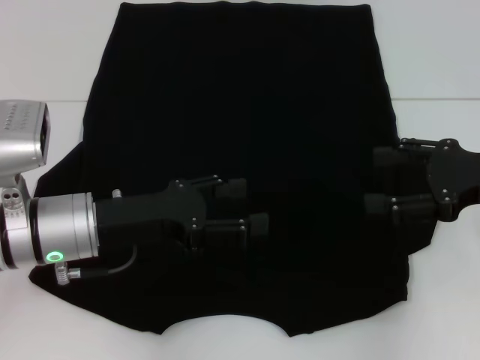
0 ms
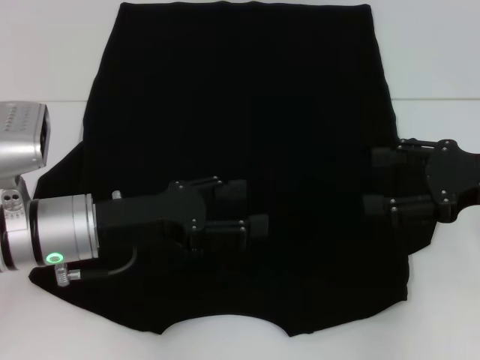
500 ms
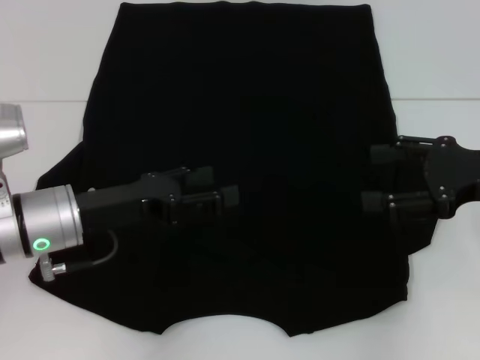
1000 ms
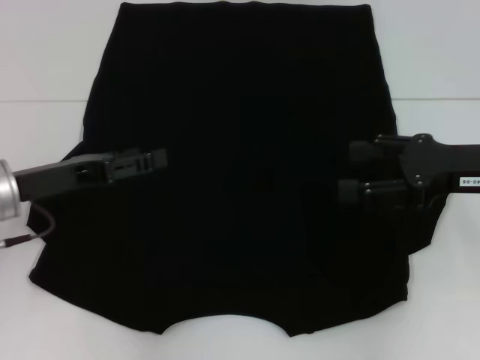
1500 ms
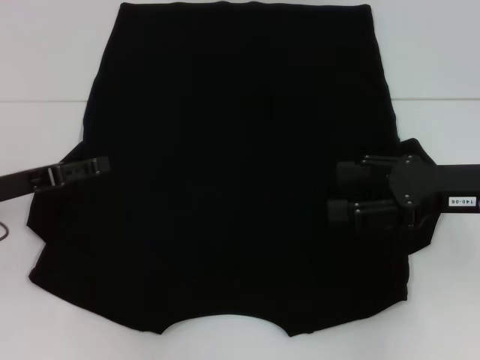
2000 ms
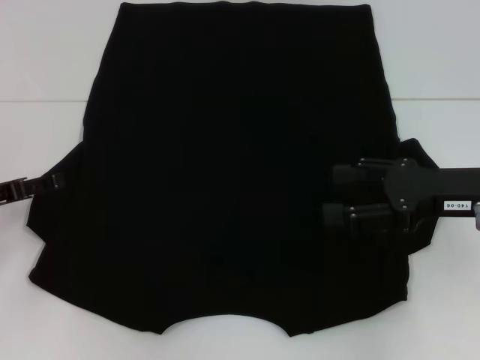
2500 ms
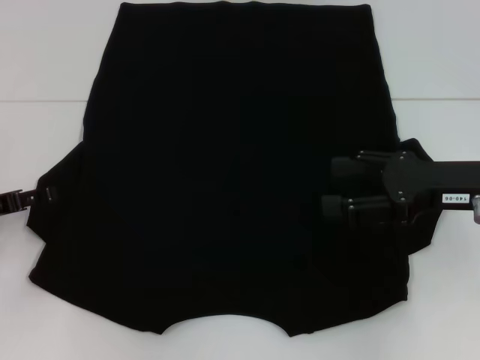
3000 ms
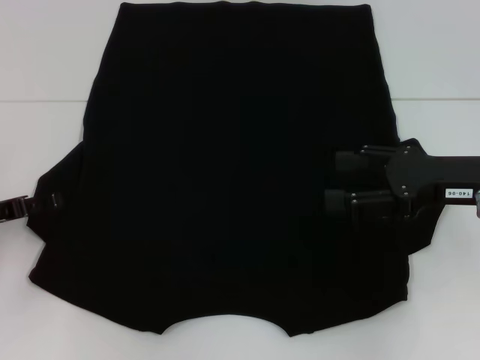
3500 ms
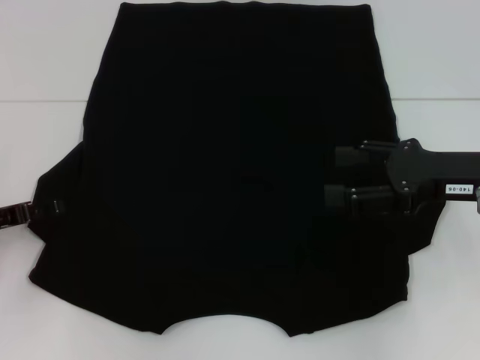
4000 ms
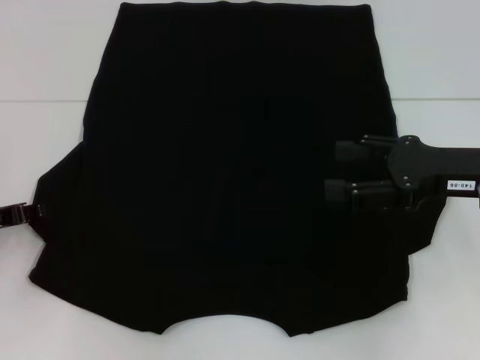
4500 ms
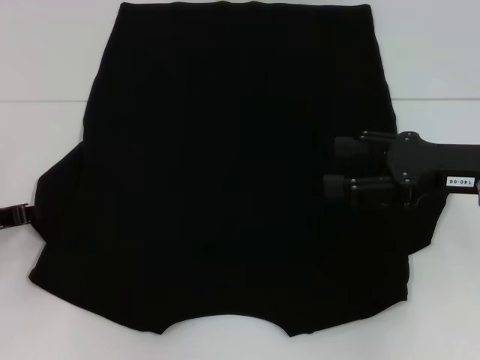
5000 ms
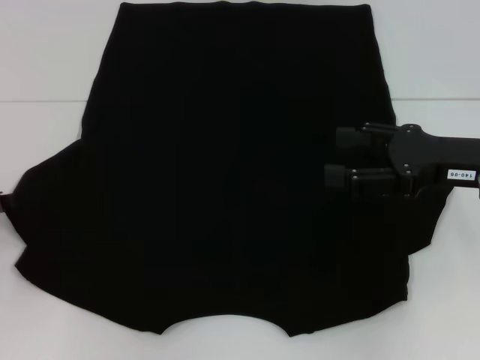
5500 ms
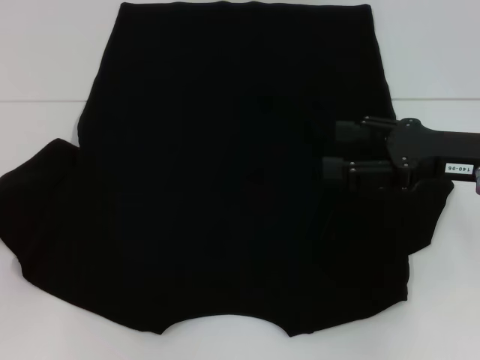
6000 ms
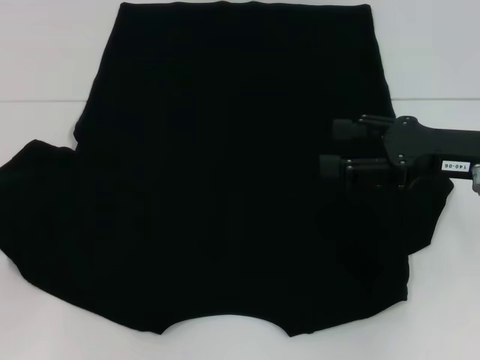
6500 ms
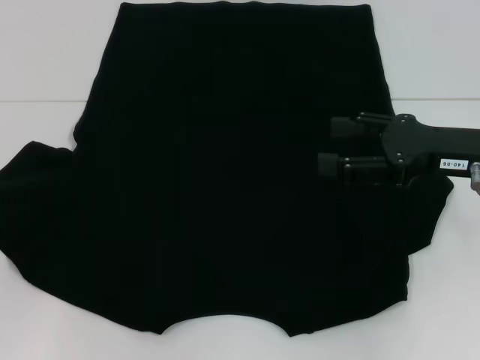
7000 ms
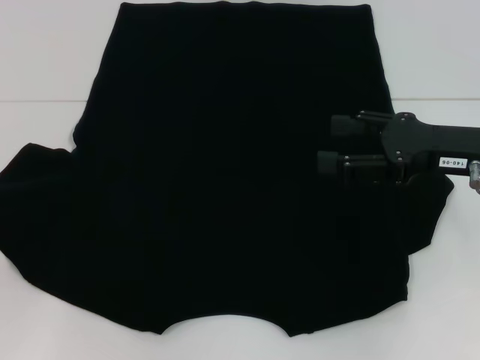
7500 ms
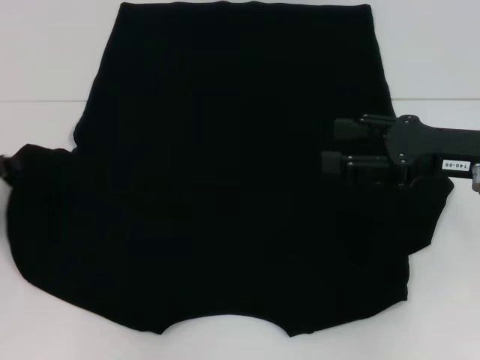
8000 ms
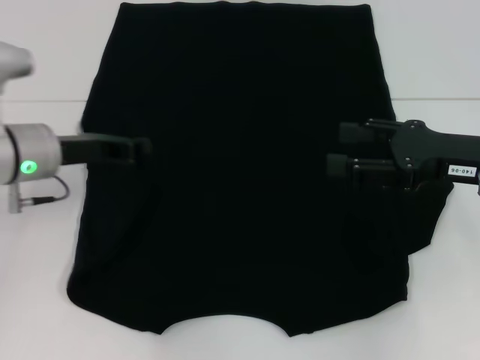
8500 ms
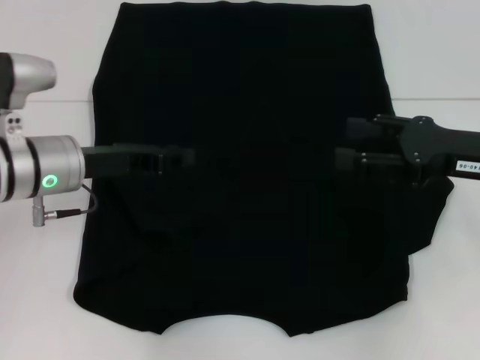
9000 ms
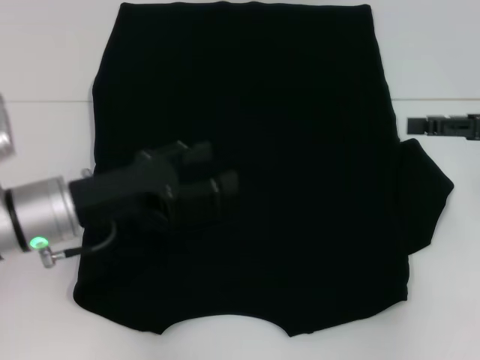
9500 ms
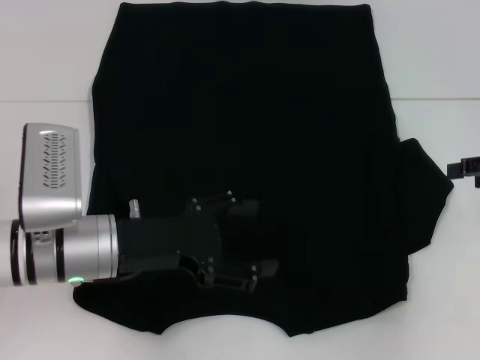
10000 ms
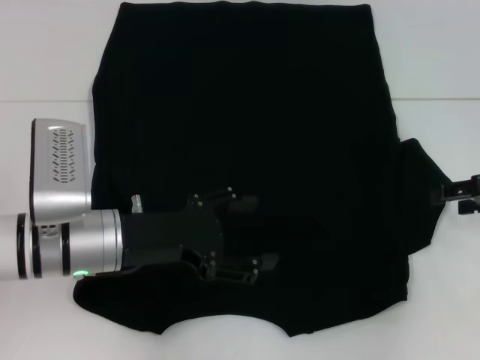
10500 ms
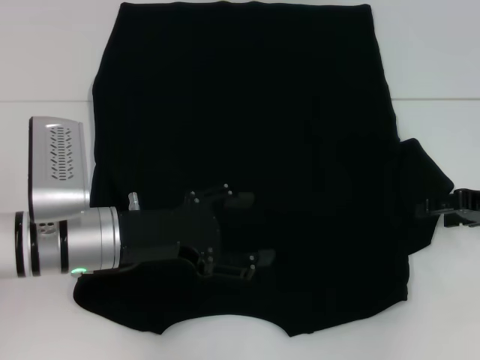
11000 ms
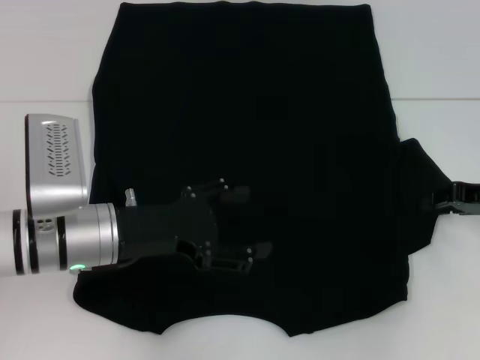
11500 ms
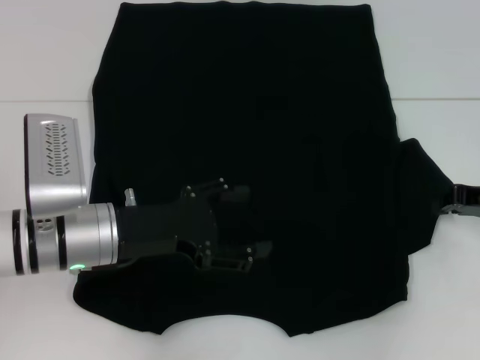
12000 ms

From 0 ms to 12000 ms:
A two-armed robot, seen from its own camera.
Step, from 0 ms to 8500 ms: Fold the bottom left sleeve with your left hand.
From 0 ms to 2000 ms: The left gripper travels to the left by roughly 10 cm.
From 2000 ms to 4000 ms: The grippers stay close to where they were, moving slightly.
From 4000 ms to 6000 ms: The left gripper closes its fingers.
From 6000 ms to 8000 ms: The grippers move only a little.
From 8000 ms to 10000 ms: The right gripper travels to the right by approximately 10 cm, while the left gripper moves to the right, some 20 cm, and opens up.
From 10000 ms to 12000 ms: The right gripper is displaced downward by some 5 cm, and closes.

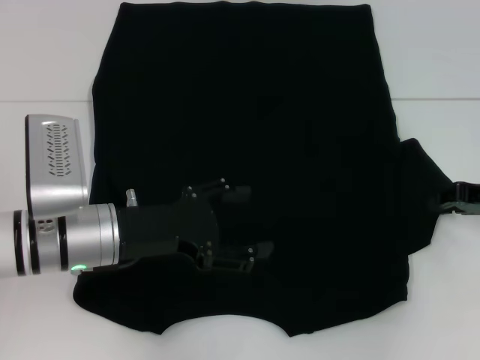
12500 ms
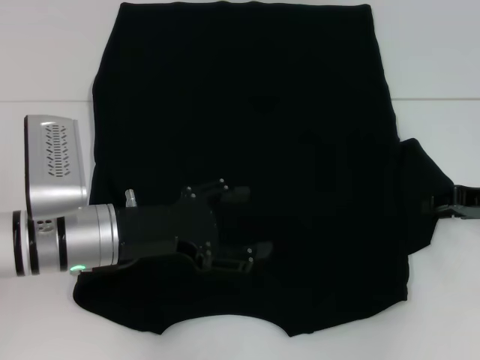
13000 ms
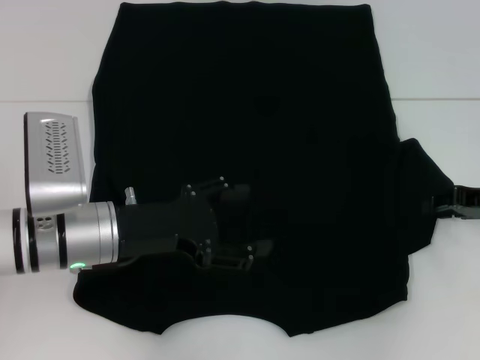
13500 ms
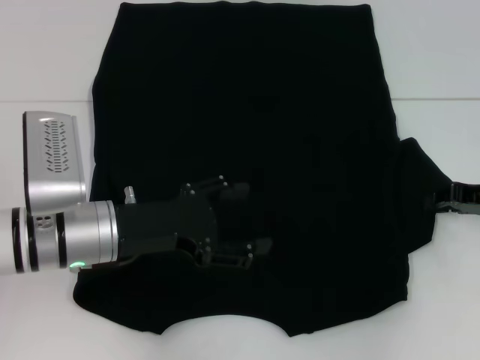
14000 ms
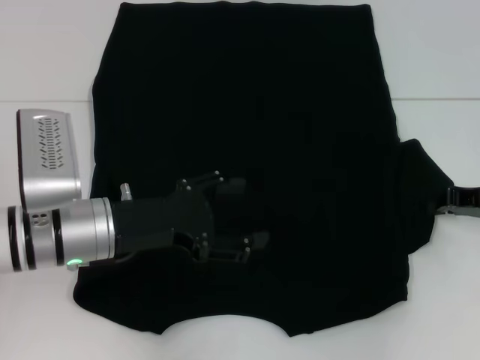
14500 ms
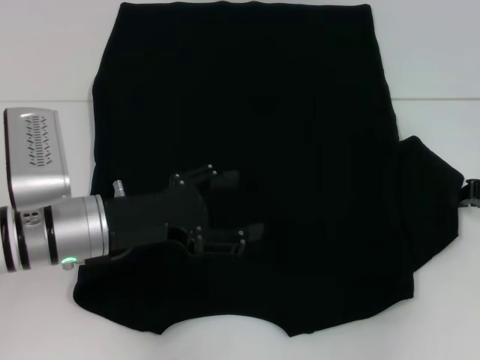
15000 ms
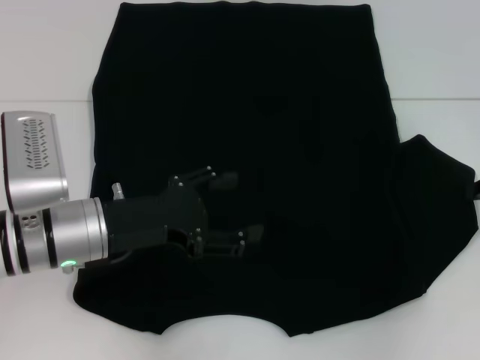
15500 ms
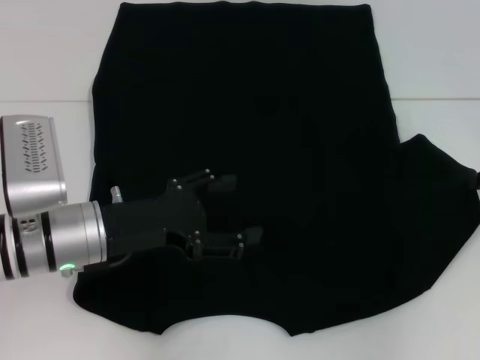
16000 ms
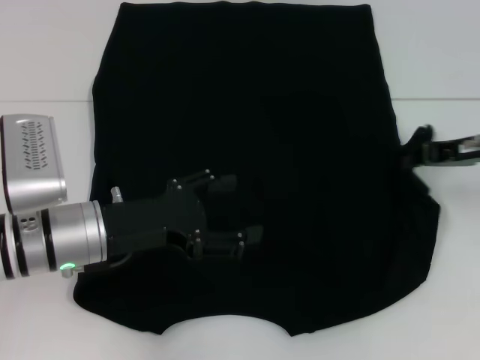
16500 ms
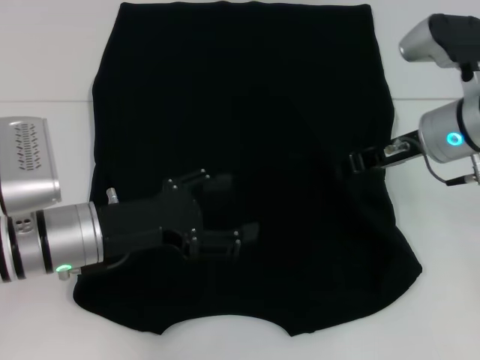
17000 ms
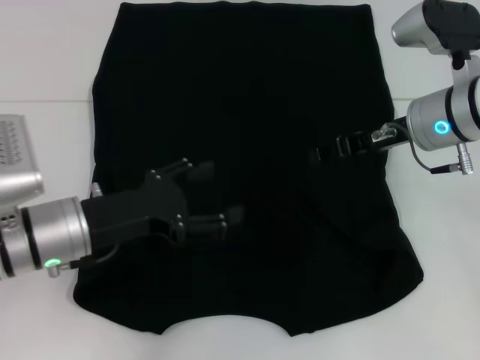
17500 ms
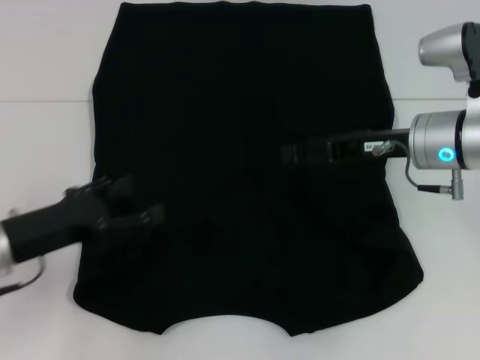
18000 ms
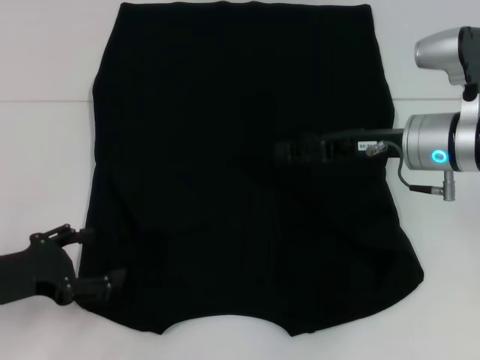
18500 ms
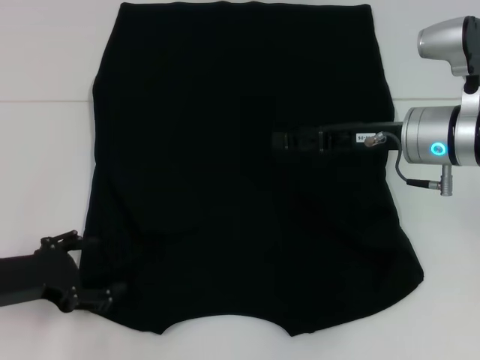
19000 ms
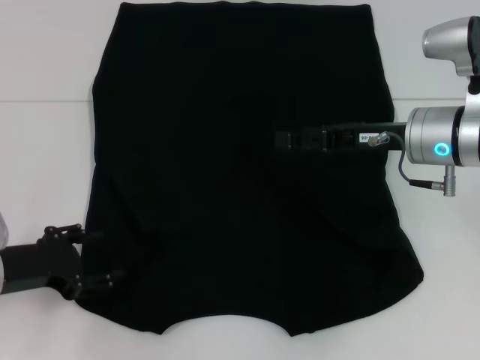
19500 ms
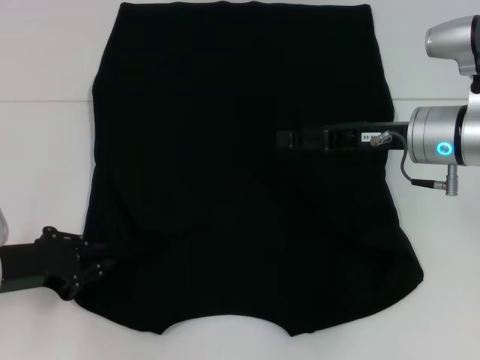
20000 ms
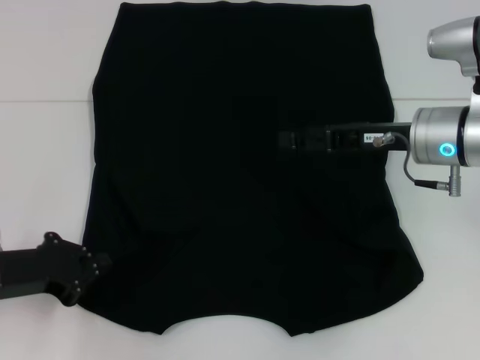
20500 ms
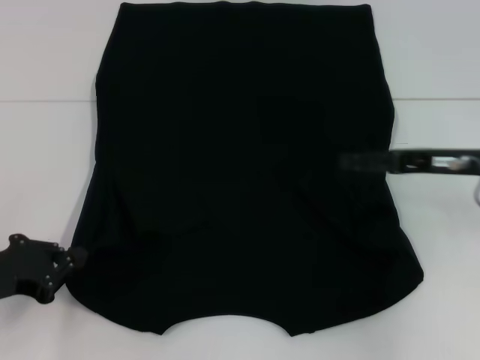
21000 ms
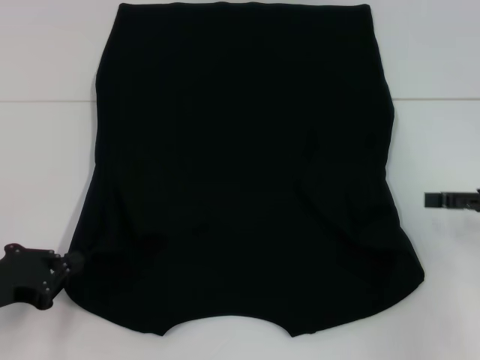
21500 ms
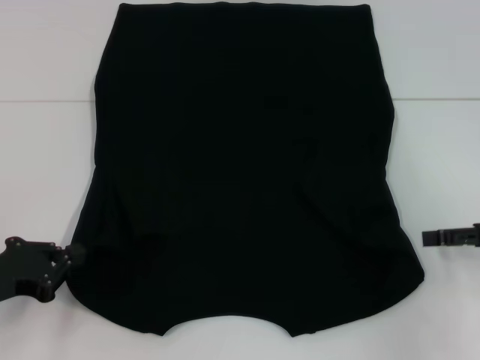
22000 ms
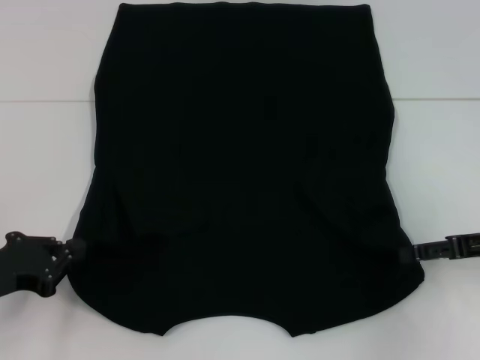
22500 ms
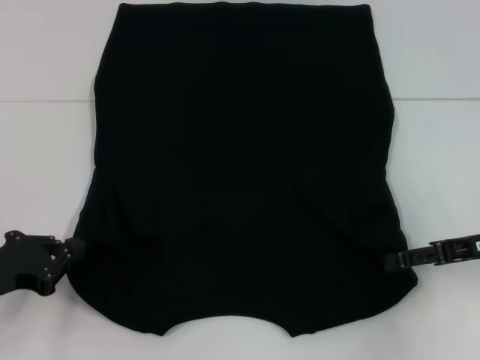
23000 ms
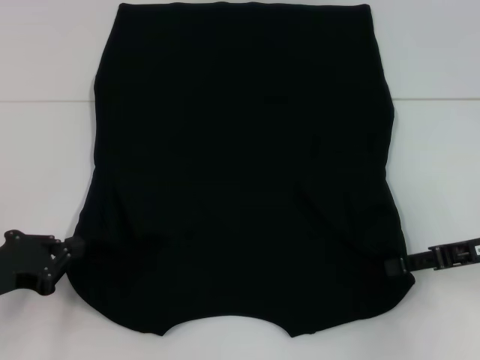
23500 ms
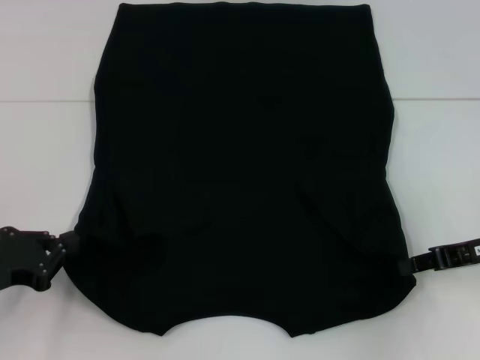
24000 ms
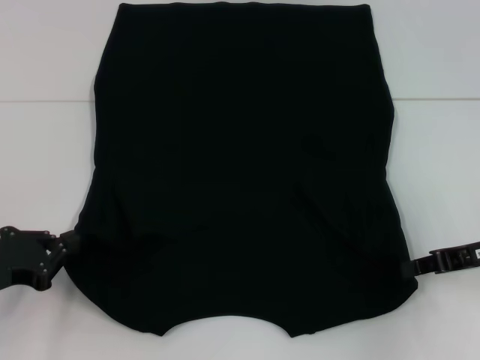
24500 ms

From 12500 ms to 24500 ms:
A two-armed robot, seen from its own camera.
Step, from 12500 ms to 17000 ms: Fold the bottom right sleeve with your right hand.
Step, from 17500 ms to 21000 ms: Grab the bottom left corner with your left hand.
From 12500 ms to 14500 ms: The two grippers keep their place.
From 14500 ms to 16500 ms: The right gripper shifts by about 5 cm.
From 16500 ms to 18500 ms: The left gripper goes some 10 cm to the left and backward. Meanwhile the right gripper moves to the left, about 10 cm, and opens up.
From 18500 ms to 20500 ms: The left gripper closes its fingers.
From 20500 ms to 22500 ms: The right gripper heads to the right and backward, covering roughly 15 cm.
From 22500 ms to 24500 ms: The right gripper closes up.

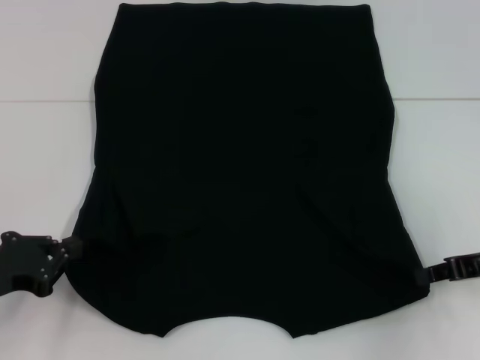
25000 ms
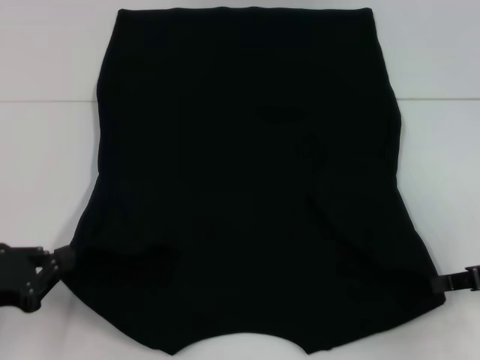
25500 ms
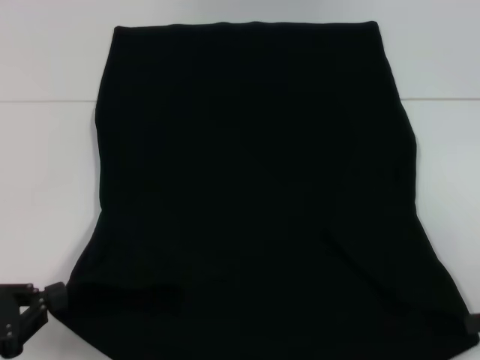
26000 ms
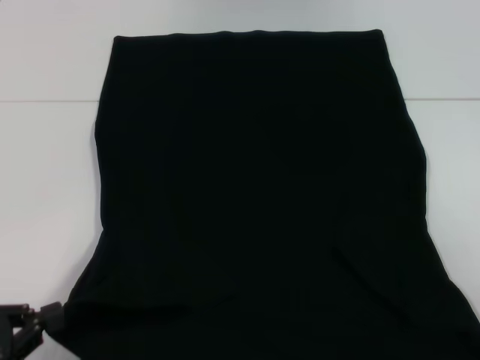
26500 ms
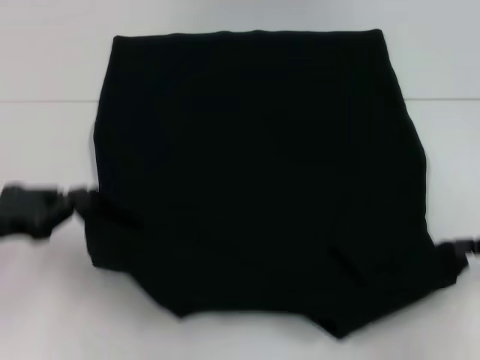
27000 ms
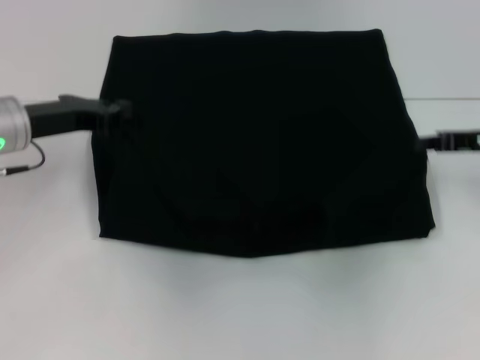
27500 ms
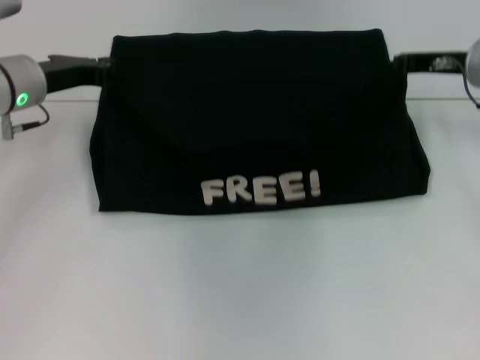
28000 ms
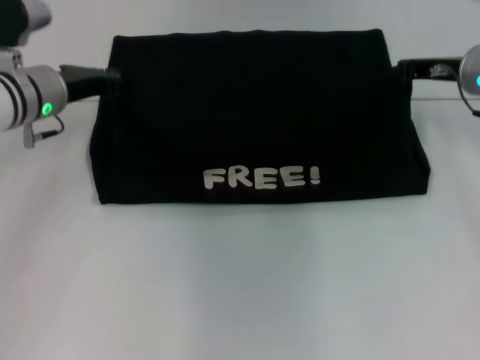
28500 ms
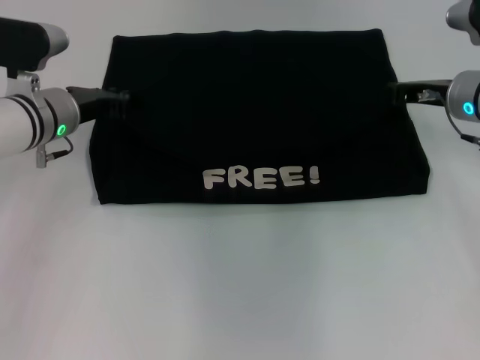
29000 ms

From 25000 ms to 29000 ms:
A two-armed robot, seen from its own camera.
From 25000 ms to 27000 ms: The left gripper travels backward and back again, some 10 cm each way, while the right gripper moves approximately 10 cm backward and comes back.
From 27000 ms to 29000 ms: The left gripper shifts some 20 cm forward and to the right; the right gripper heads forward and to the left, covering about 20 cm.
